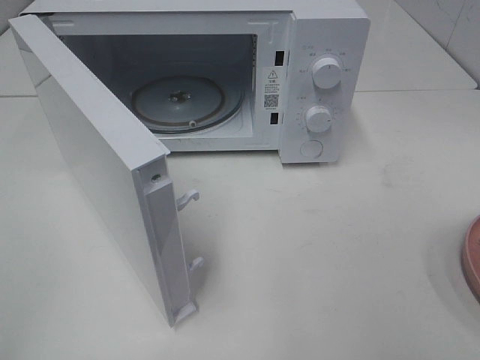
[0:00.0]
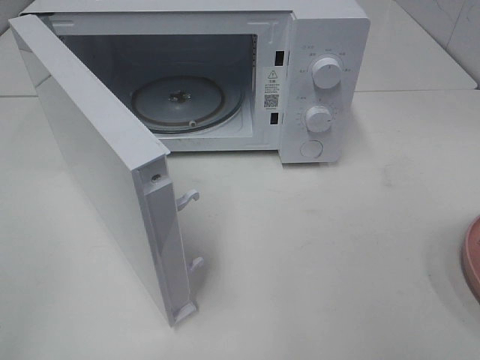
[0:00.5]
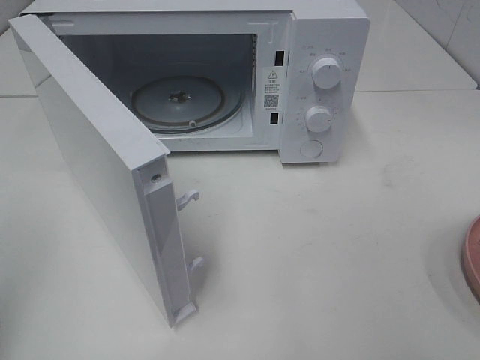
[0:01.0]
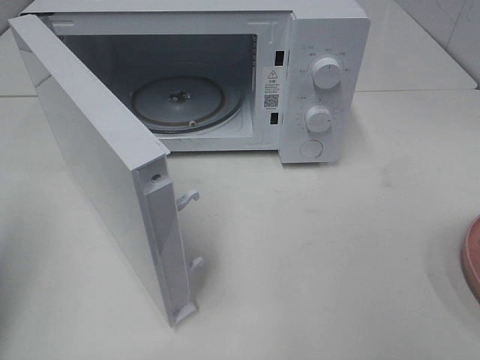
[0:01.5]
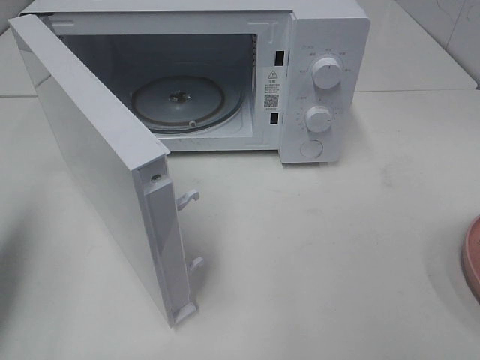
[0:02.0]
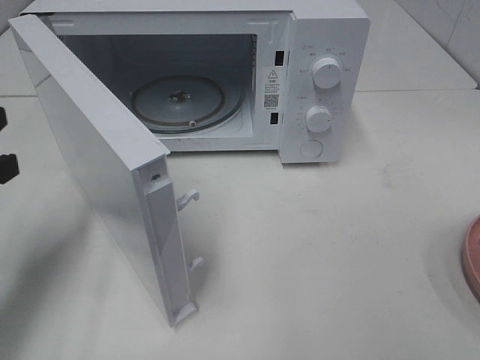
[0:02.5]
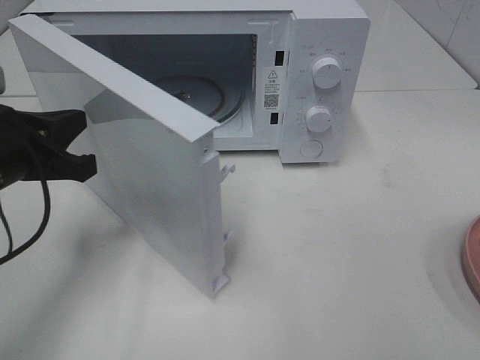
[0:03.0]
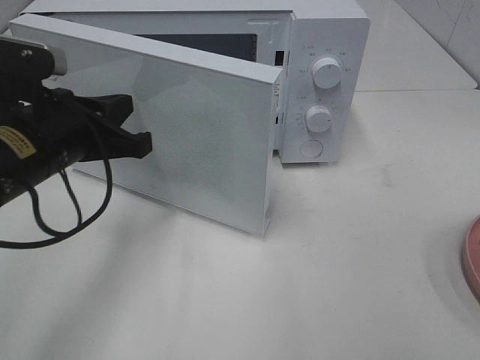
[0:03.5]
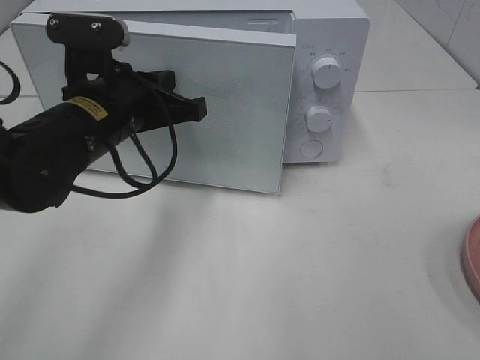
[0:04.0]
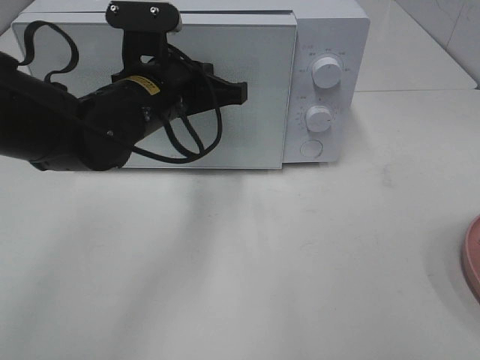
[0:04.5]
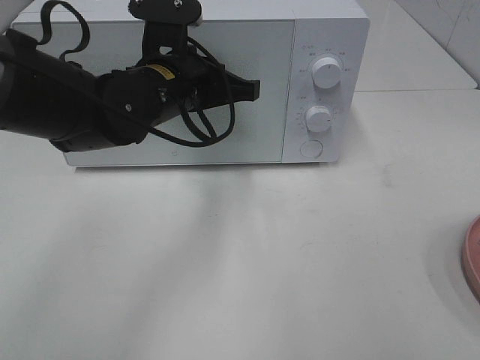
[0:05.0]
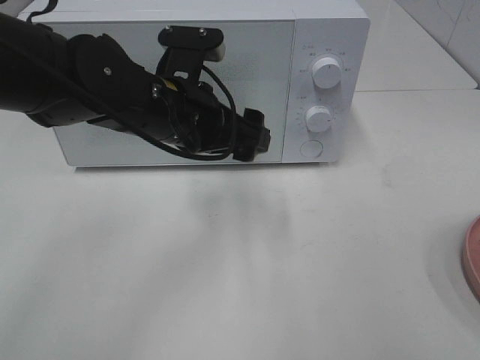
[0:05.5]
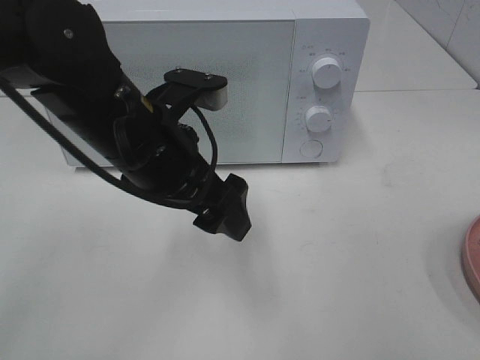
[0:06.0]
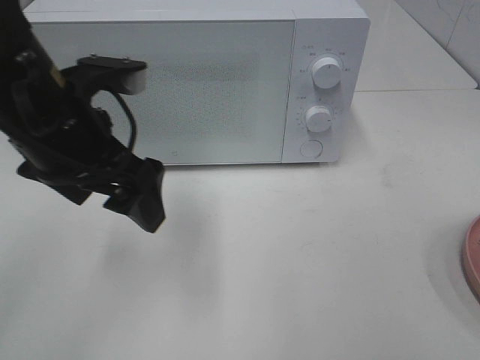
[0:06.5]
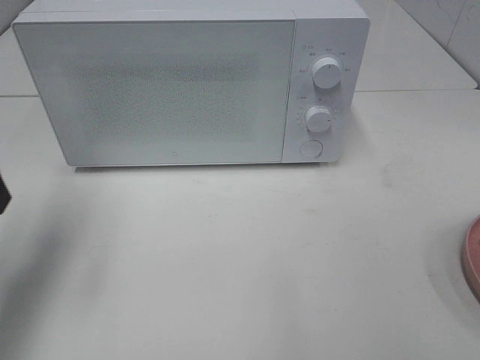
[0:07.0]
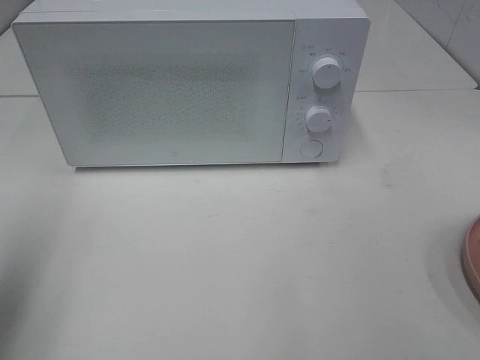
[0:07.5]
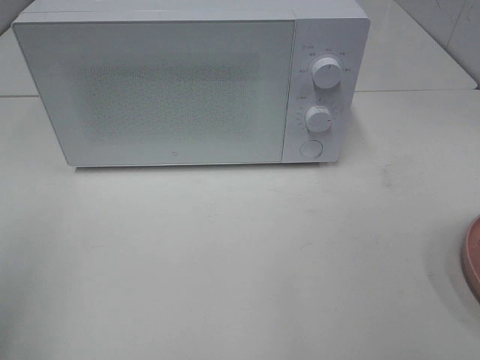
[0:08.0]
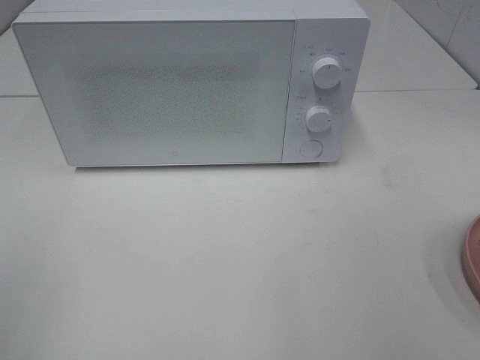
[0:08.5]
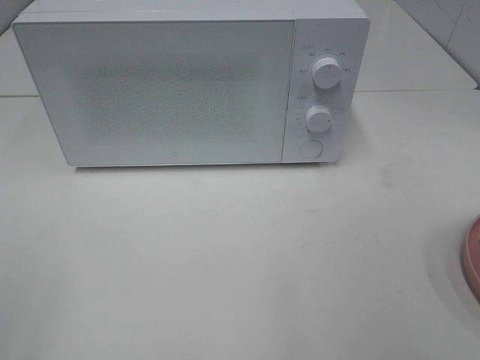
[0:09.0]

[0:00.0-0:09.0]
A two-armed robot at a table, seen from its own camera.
Task of the whole recording: Heat the burger.
Step, 0:00.0 to 0:05.5: Left hand: close the microwave door.
0:00.0 to 0:02.0: The left gripper moves forward, some 20 cm, and closes up.
0:02.0 to 0:04.5: The left gripper is displaced to the right and forward by about 30 cm.
0:04.5 to 0:07.0: The left gripper is displaced to the left and backward by approximately 20 cm, and opens its fingers.
0:07.0 to 0:09.0: The left gripper travels backward by some 25 cm.
